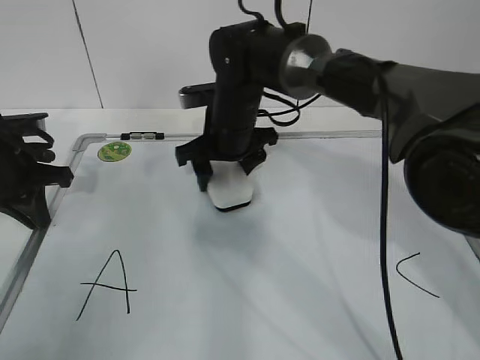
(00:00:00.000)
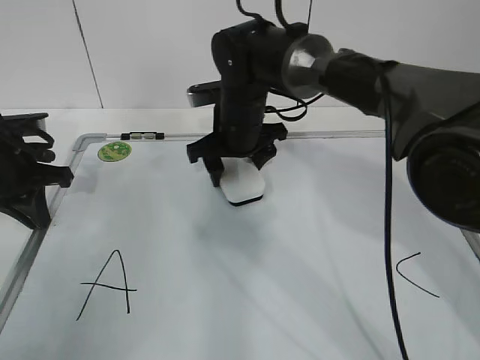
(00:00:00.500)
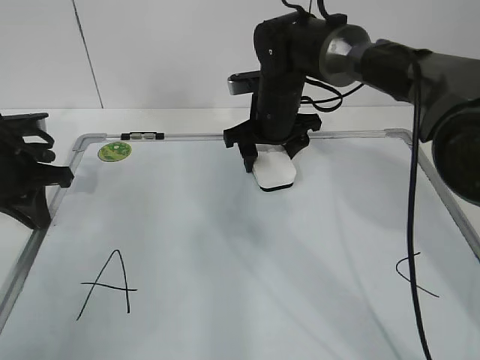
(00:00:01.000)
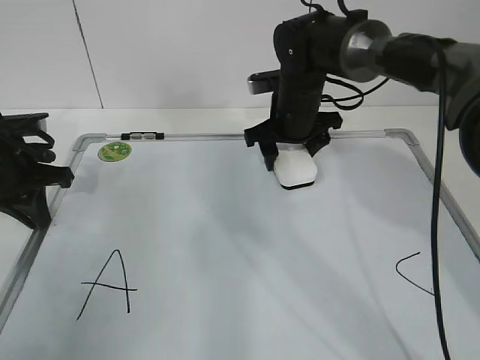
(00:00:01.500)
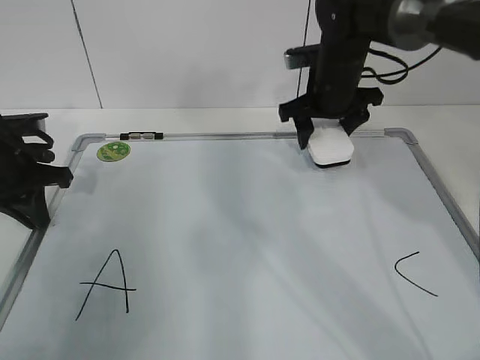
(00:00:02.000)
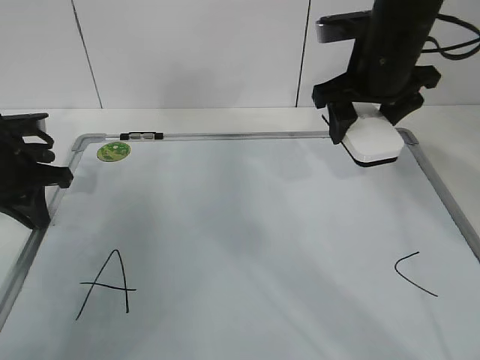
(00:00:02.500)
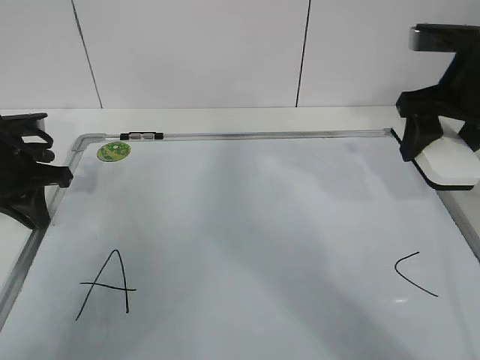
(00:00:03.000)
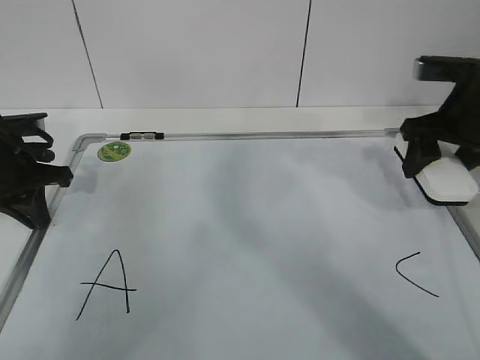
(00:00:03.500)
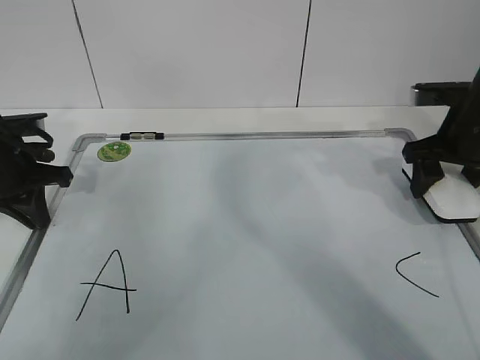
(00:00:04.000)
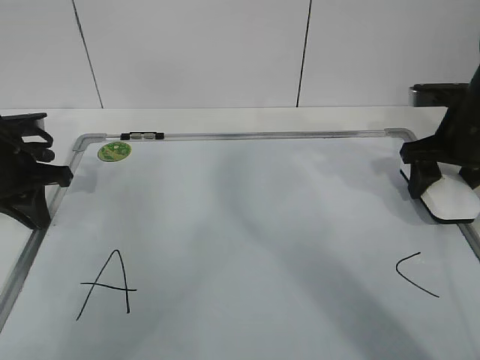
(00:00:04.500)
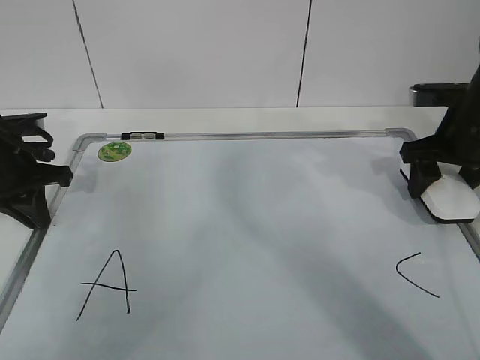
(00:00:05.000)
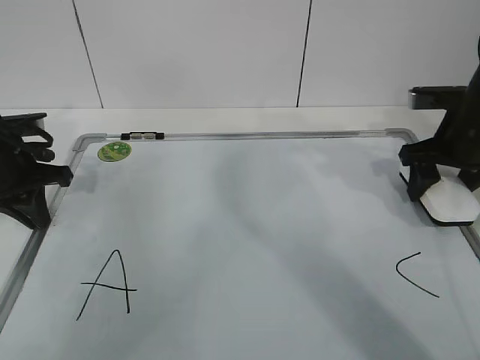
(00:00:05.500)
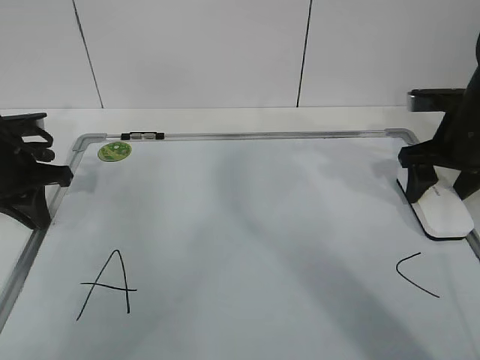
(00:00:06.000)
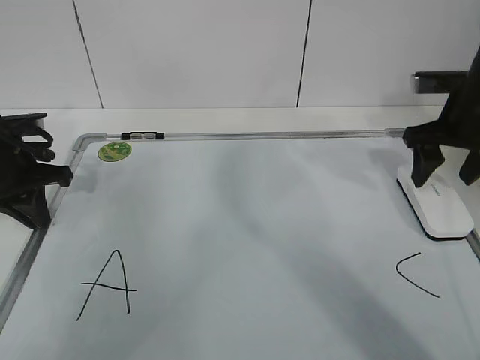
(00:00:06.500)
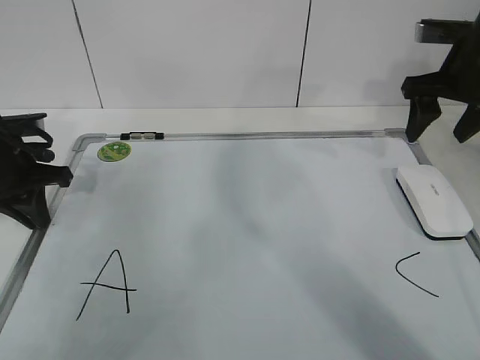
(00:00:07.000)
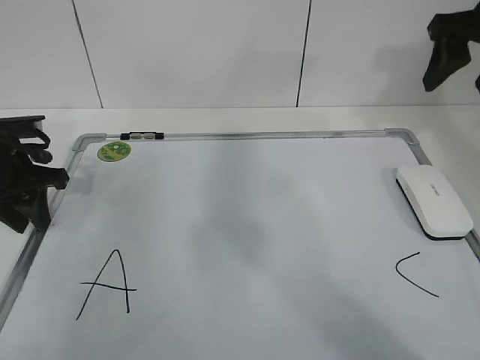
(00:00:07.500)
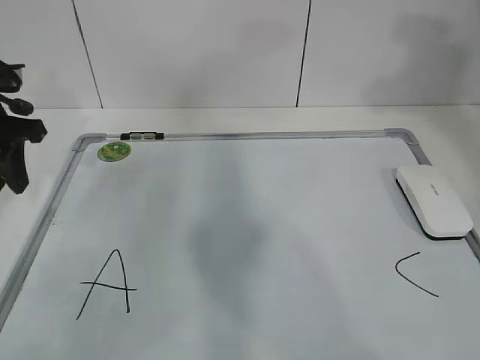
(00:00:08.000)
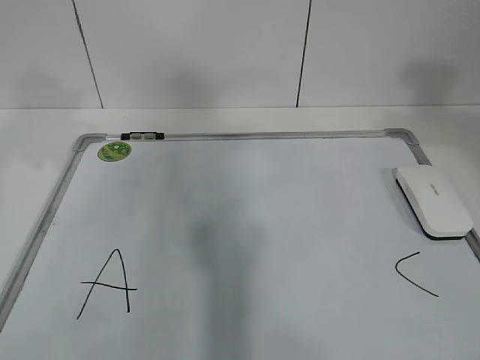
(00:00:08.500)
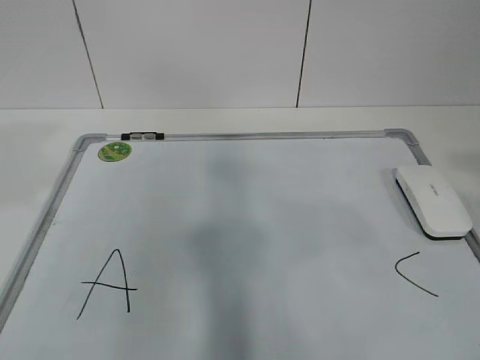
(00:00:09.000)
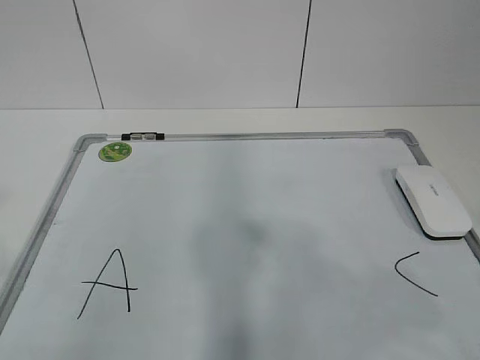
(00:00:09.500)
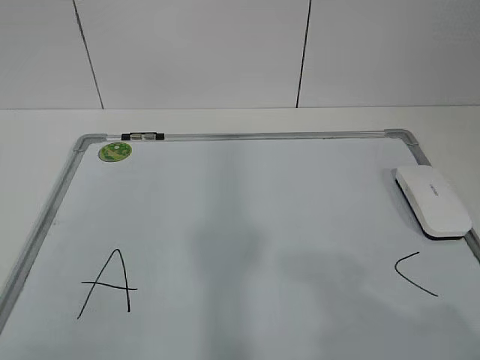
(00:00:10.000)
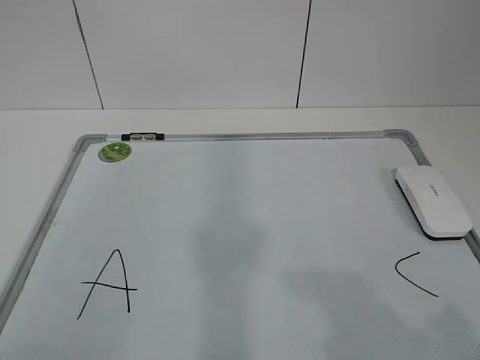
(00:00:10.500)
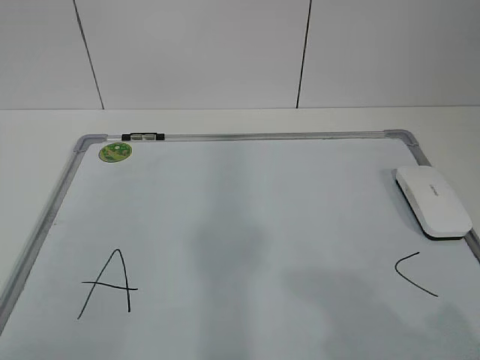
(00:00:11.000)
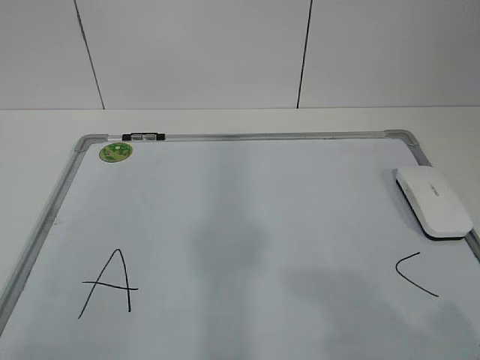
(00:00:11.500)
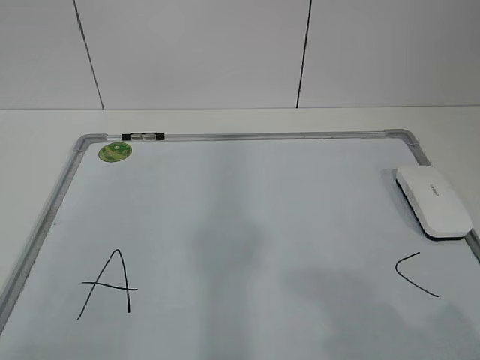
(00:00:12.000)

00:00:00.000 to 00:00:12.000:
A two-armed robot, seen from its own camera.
Task of the whole recording: pick up the eraser on the blackboard and erase the letter "B".
Step, 00:00:00.000 to 00:00:02.000: Put down the eraser with your right hand.
00:00:00.000 to 00:00:02.000: The right gripper is displaced to the right by approximately 15 cm.
00:00:02.000 to 00:00:04.000: The right gripper goes roughly 15 cm to the right and backward.
00:00:04.000 to 00:00:06.000: The right gripper opens up.
00:00:06.000 to 00:00:08.000: The right gripper shifts some 25 cm upward, while the left gripper moves upward, about 10 cm, and opens up.
00:00:08.000 to 00:00:10.000: The left gripper shifts approximately 35 cm backward. The right gripper shifts some 35 cm backward and downward.
